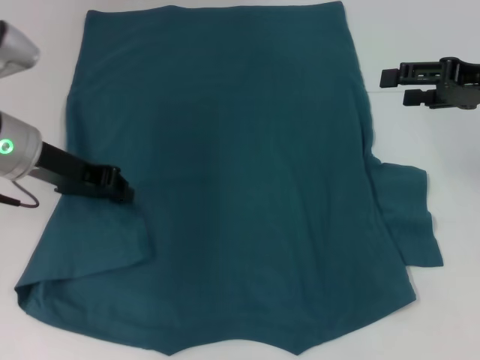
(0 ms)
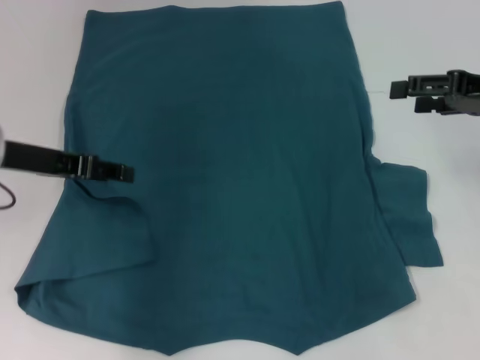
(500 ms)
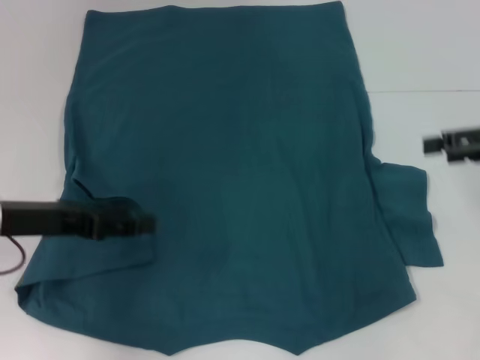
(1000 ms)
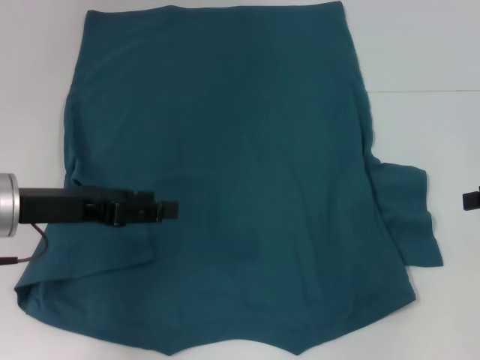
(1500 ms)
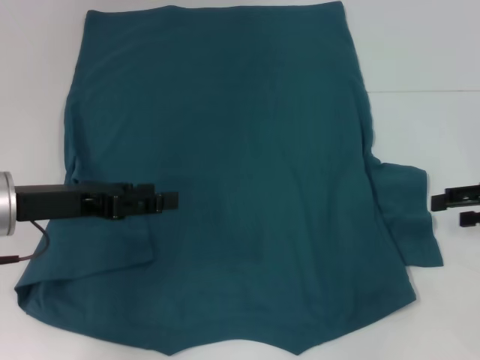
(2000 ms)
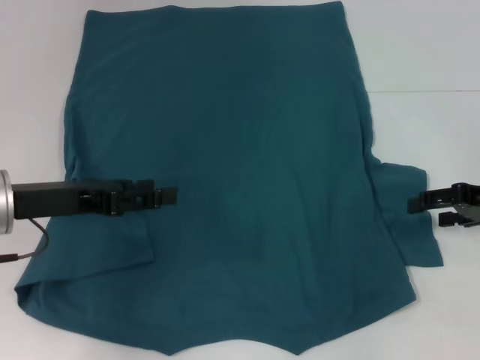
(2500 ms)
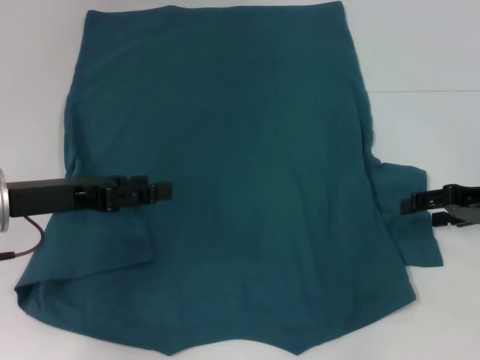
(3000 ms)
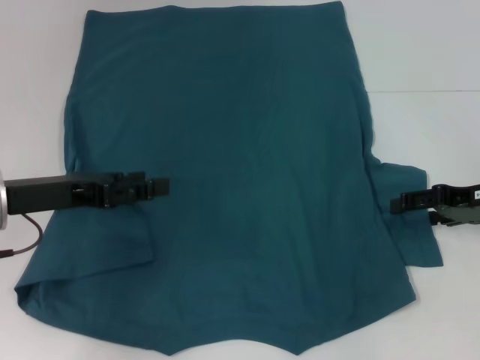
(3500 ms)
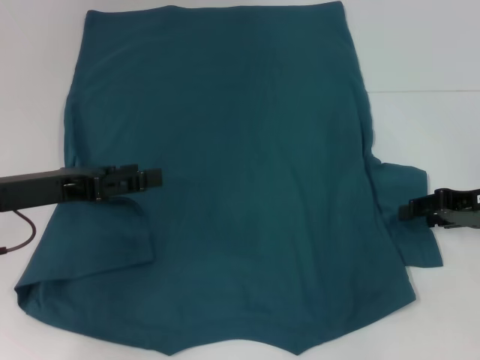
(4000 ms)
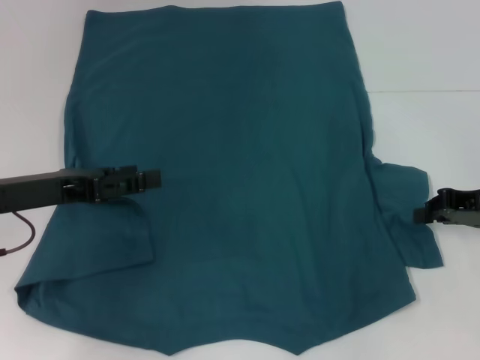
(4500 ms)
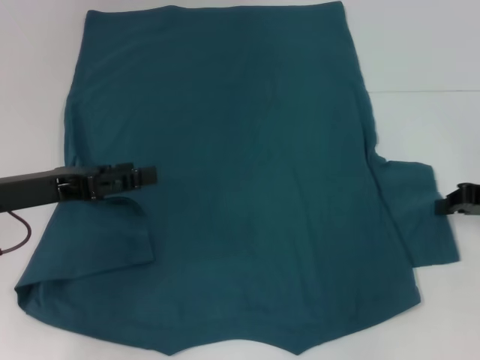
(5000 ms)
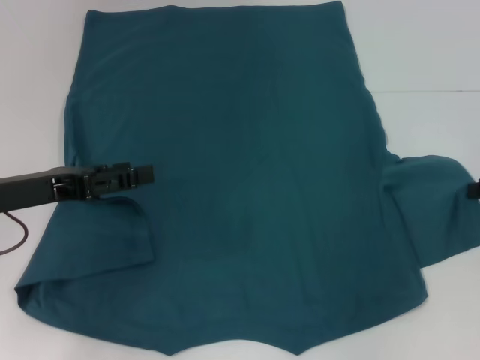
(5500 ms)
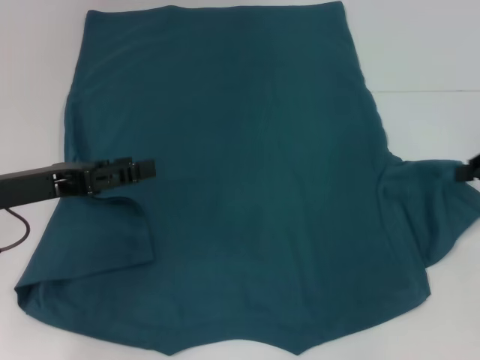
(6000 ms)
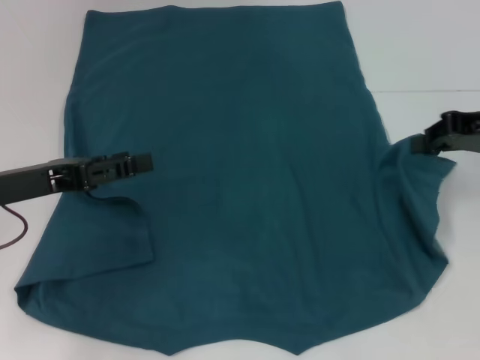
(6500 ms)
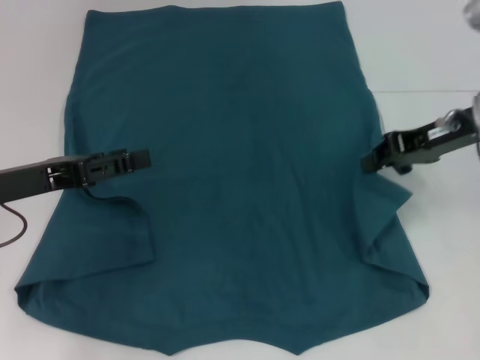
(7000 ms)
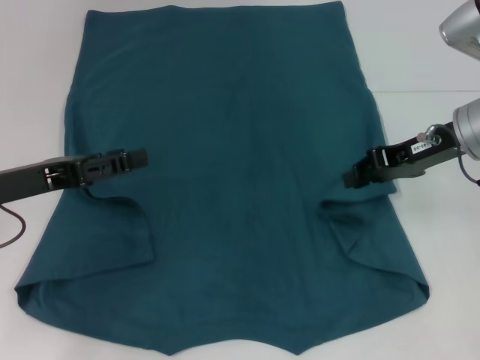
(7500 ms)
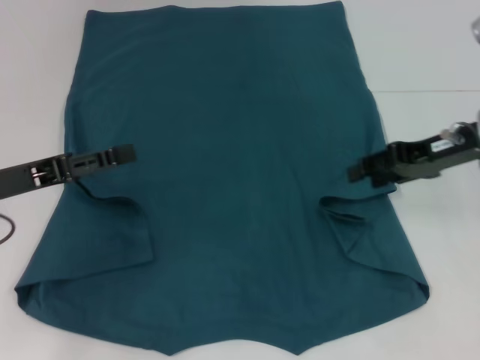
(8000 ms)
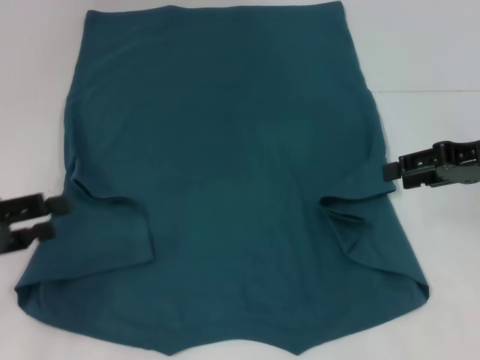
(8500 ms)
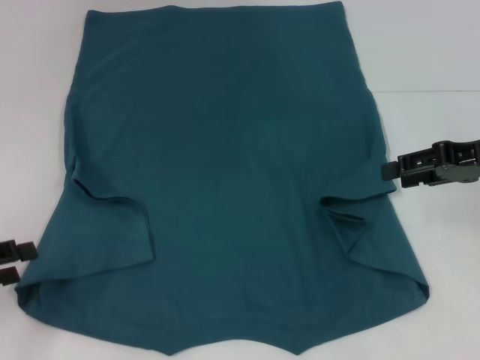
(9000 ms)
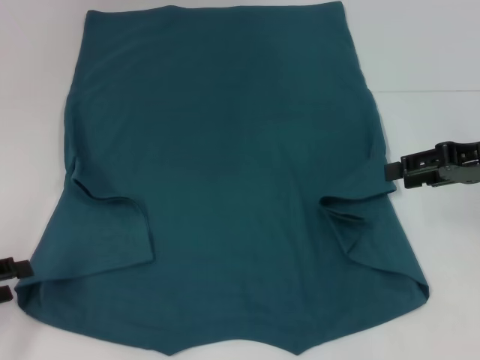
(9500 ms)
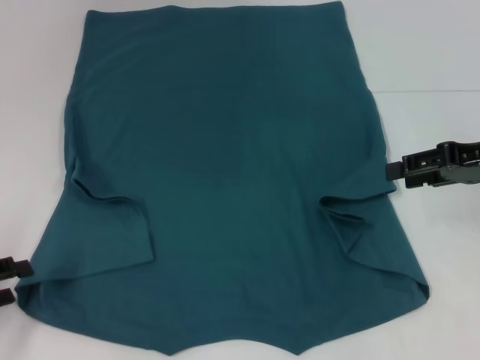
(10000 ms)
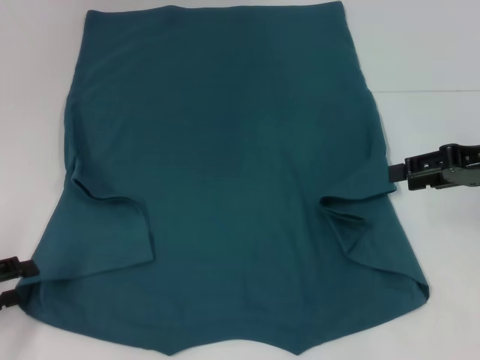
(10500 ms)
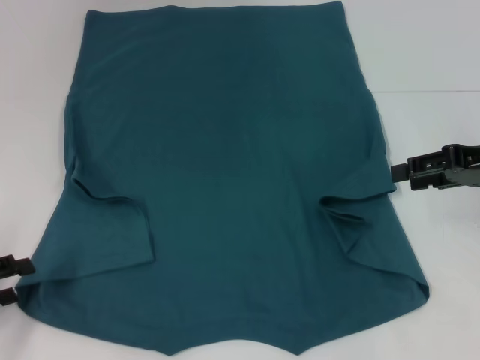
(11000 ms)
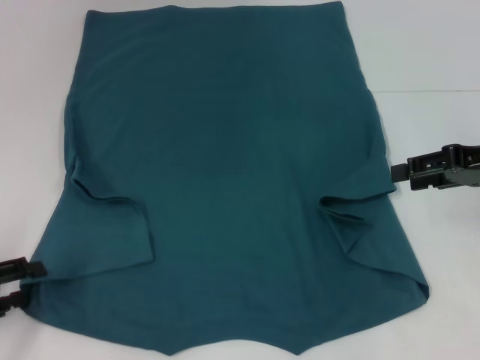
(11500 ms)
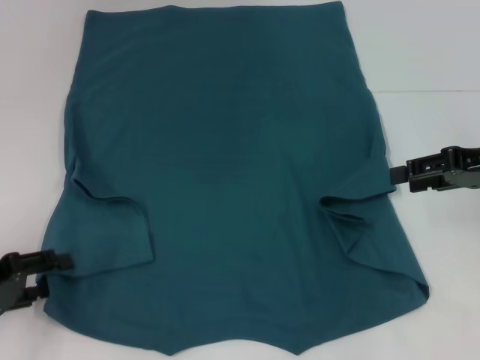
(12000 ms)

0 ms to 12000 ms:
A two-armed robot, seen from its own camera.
Step, 500 ms to 7500 ms: Fold the bottom right sleeve to the right.
0 ms to 2000 ms: The left gripper is displaced backward by approximately 5 cm, and opens up; the right gripper goes some 10 cm downward and to the right.
2000 ms to 4000 ms: The grippers move only a little.
4000 ms to 6000 ms: The right gripper ends up about 5 cm from where it was, and closes its fingers.
6000 ms to 8000 ms: The right gripper goes approximately 10 cm to the left, and opens its fingers.
8000 ms to 10000 ms: The left gripper travels to the left, backward and downward by roughly 15 cm; the right gripper moves about 5 cm.
10000 ms to 12000 ms: The grippers make only small movements.

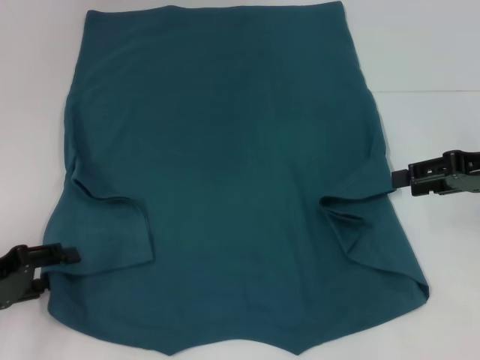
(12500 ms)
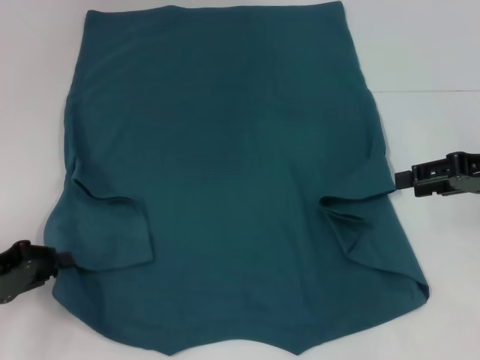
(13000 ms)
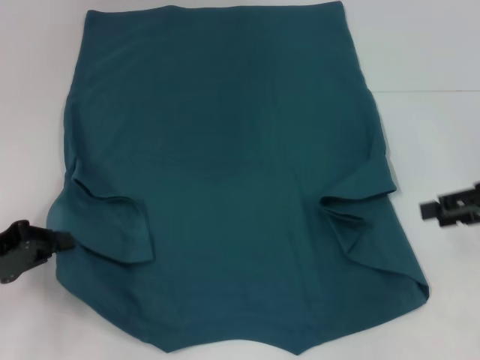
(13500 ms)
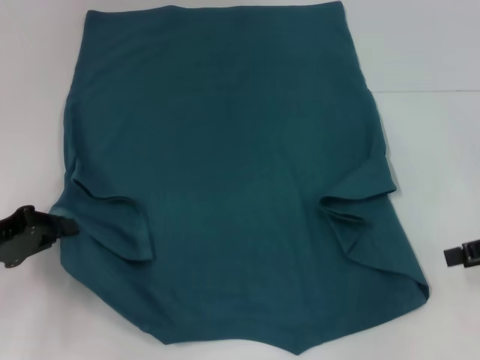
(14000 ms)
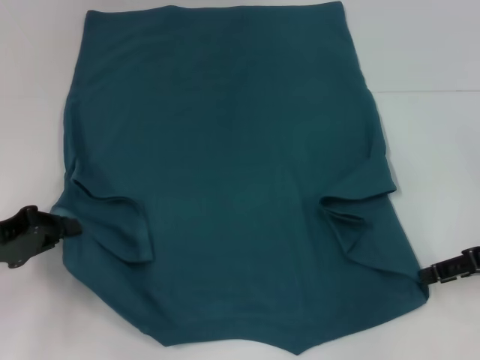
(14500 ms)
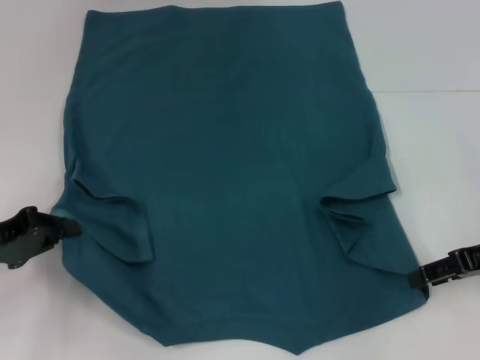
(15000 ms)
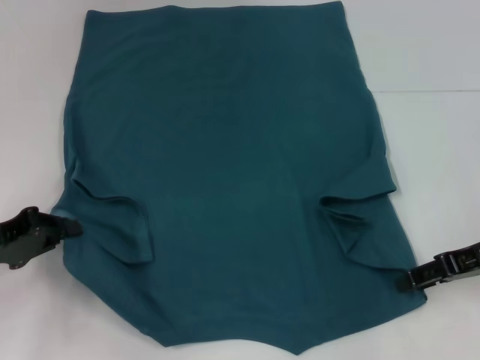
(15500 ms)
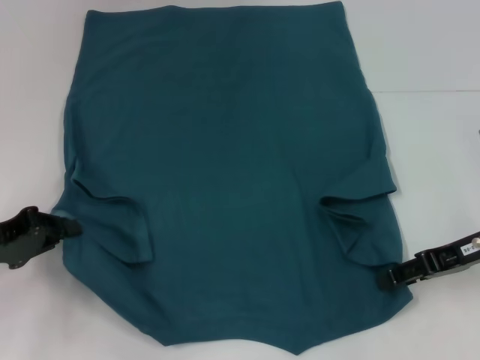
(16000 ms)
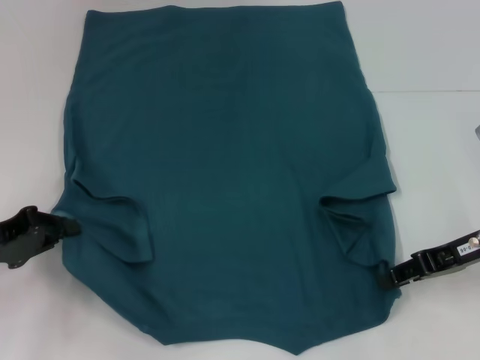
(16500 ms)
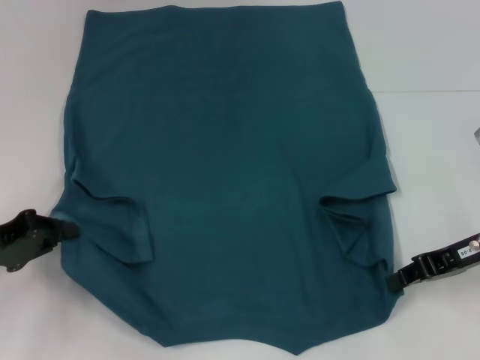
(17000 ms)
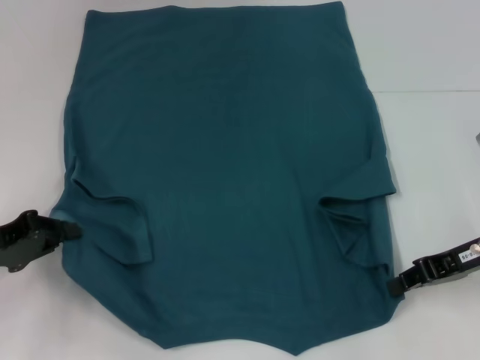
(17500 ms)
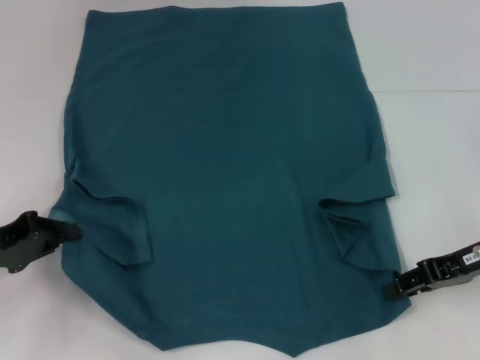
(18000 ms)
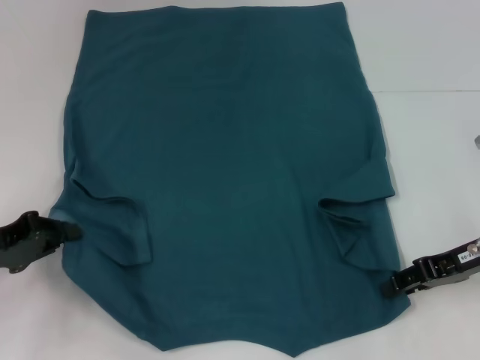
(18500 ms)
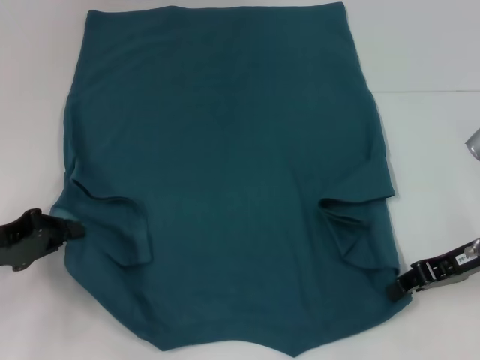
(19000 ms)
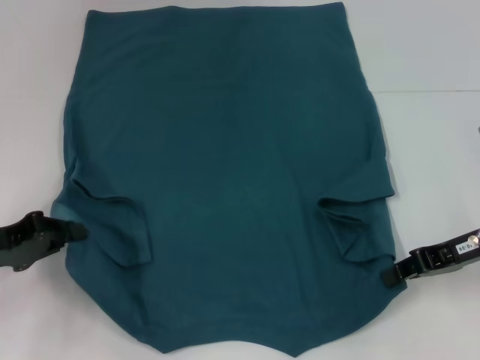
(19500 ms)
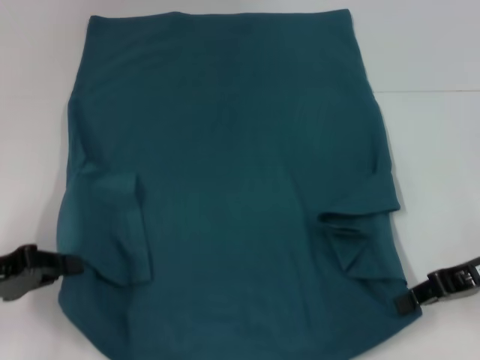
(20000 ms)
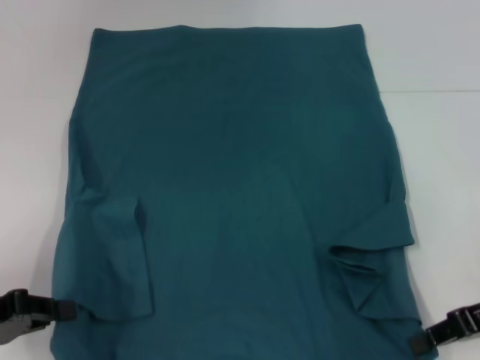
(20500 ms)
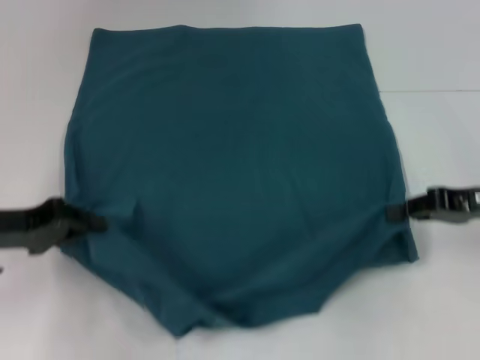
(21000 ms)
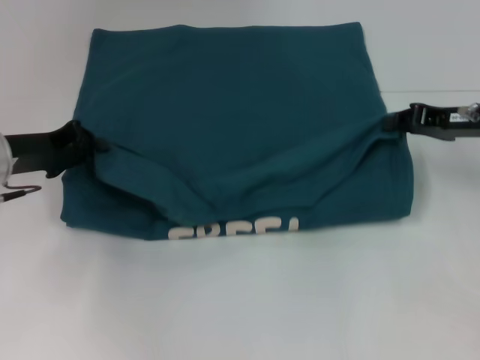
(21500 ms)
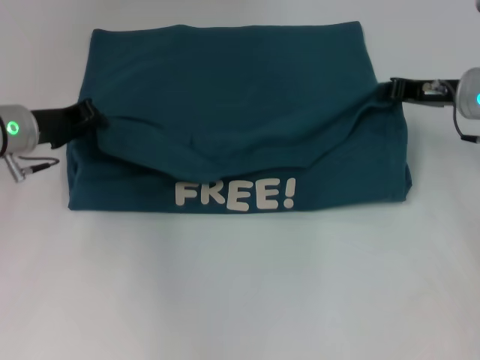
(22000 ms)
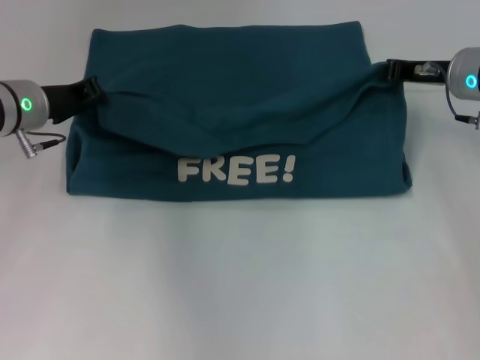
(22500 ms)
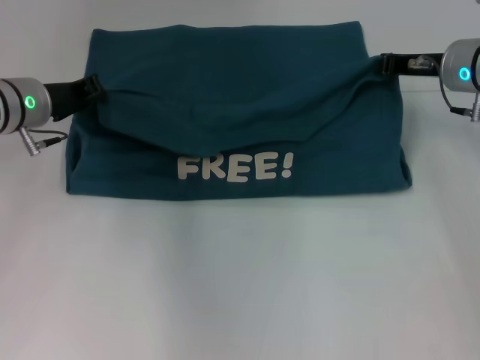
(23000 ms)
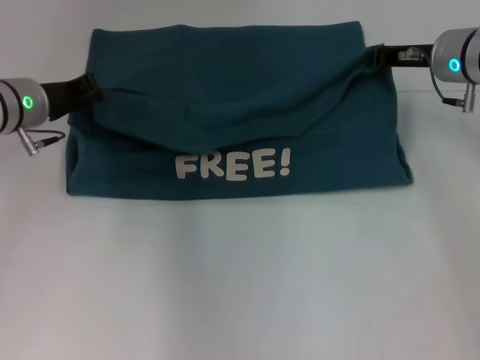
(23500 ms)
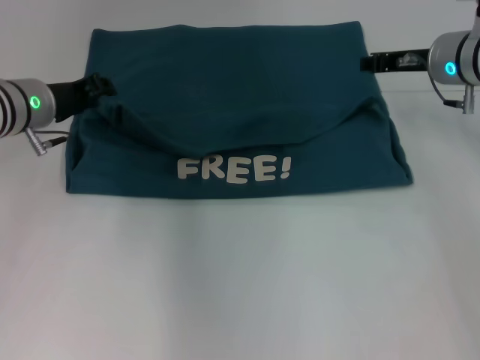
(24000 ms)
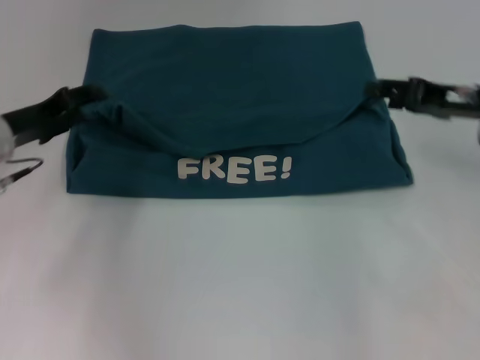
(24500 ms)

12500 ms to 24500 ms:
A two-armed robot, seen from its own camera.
Step, 13500 ms to 16500 ms: Grab the bottom right corner with your right hand.
Step, 17000 ms to 23500 ms: Fold the clothes to the left.
Step, 17000 ms to 23500 ms: Fold the clothes to the right.
12500 ms to 14500 ms: The left gripper closes its fingers, while the right gripper ends up some 5 cm from where it was.
14500 ms to 16500 ms: The right gripper shifts about 5 cm to the left.
16500 ms to 18500 ms: The right gripper closes, then opens again.
18500 ms to 20500 ms: The left gripper travels backward by approximately 5 cm, while the right gripper moves roughly 5 cm, and closes its fingers.
20500 ms to 22500 ms: The left gripper is displaced forward and to the right by about 25 cm; the right gripper heads forward, covering roughly 15 cm.
22500 ms to 24500 ms: The left gripper shifts by about 5 cm, and opens. Meanwhile the right gripper shifts roughly 5 cm backward, and opens its fingers.

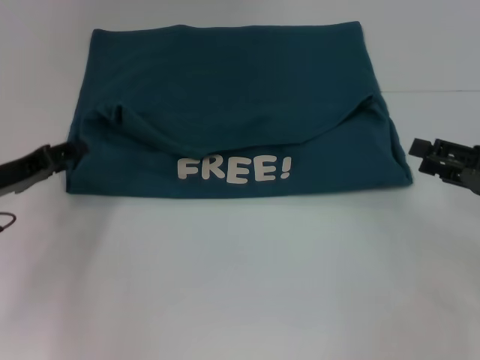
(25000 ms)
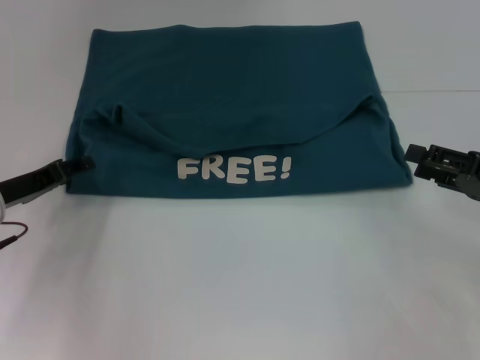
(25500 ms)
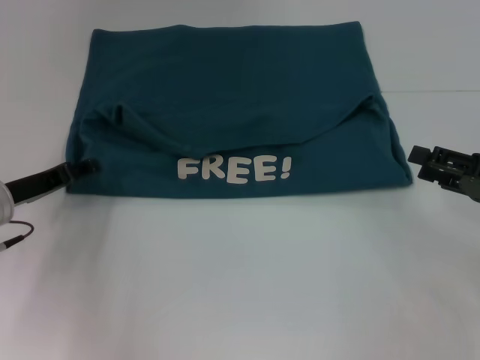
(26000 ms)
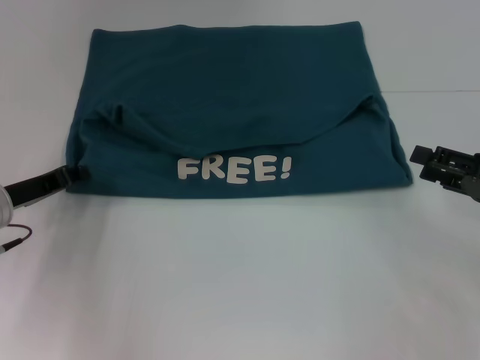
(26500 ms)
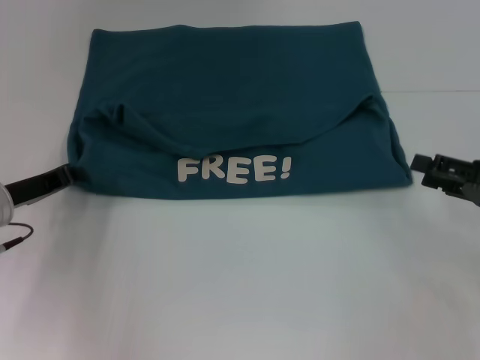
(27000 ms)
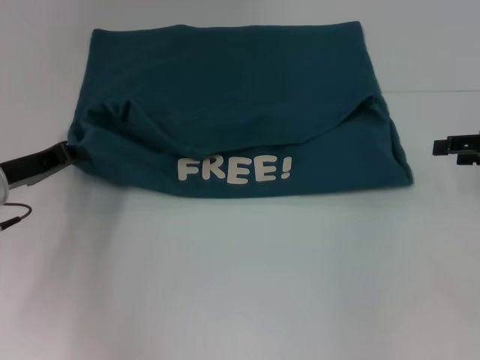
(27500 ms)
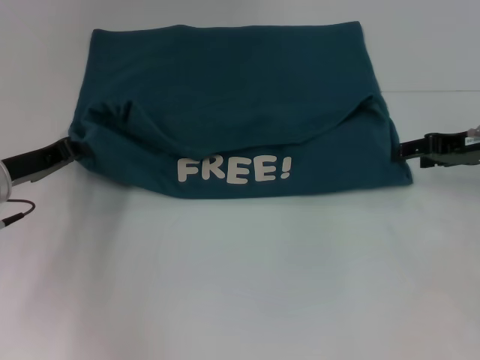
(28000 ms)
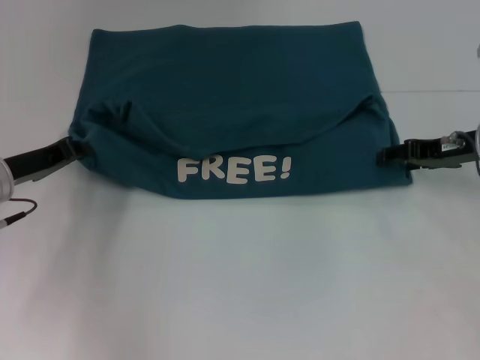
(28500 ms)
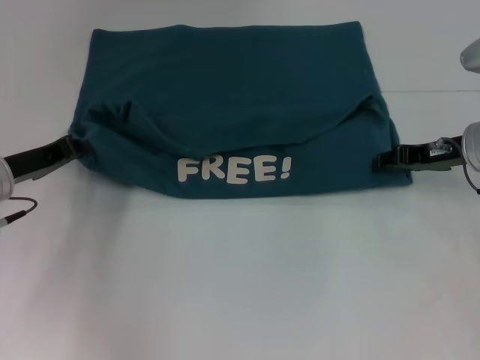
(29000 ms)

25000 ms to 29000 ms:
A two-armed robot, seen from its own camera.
25000 ms to 27000 ms: The left gripper closes up.
27000 ms to 29000 ms: The right gripper goes some 15 cm forward and to the left.
